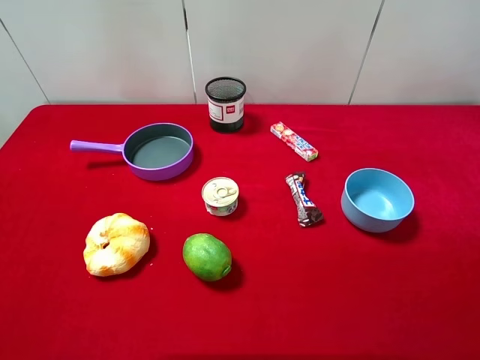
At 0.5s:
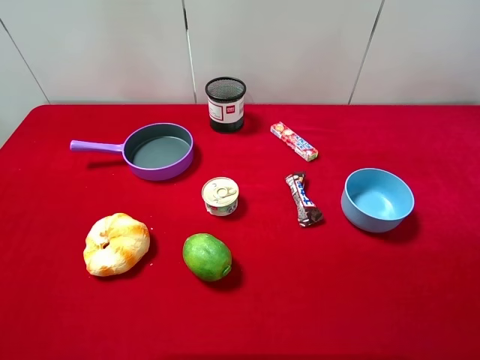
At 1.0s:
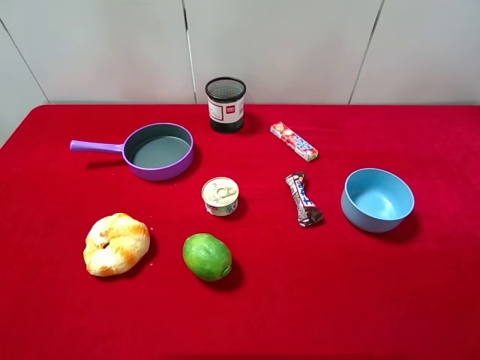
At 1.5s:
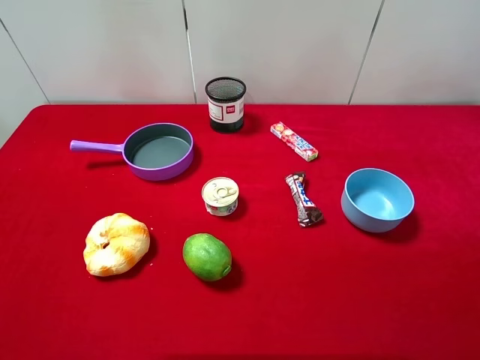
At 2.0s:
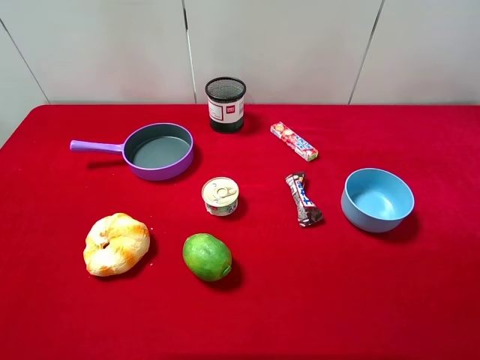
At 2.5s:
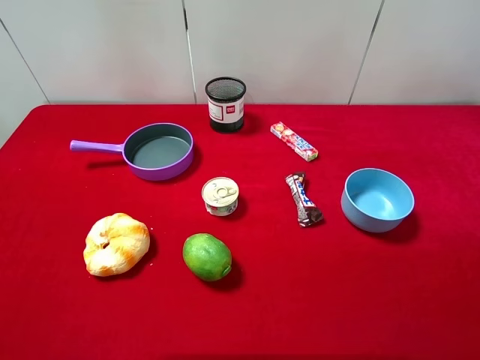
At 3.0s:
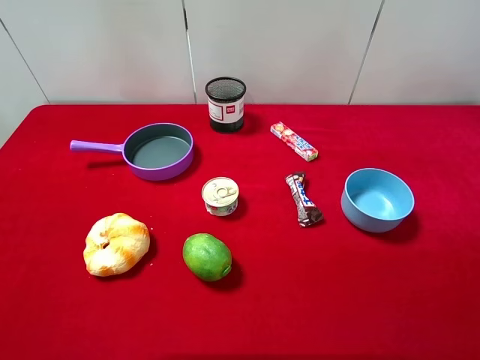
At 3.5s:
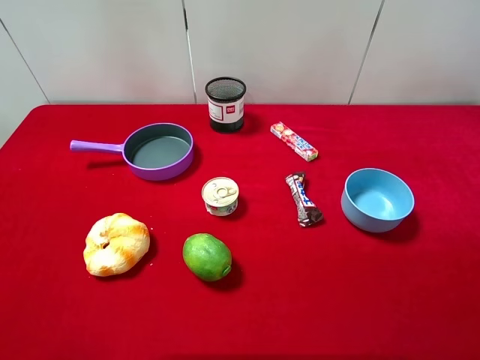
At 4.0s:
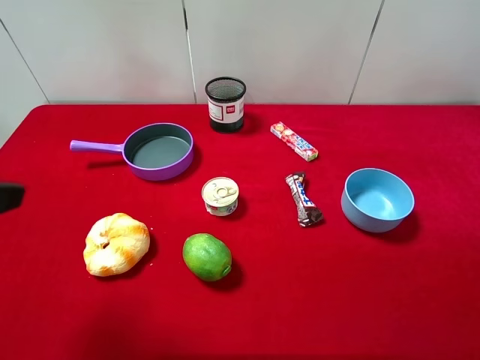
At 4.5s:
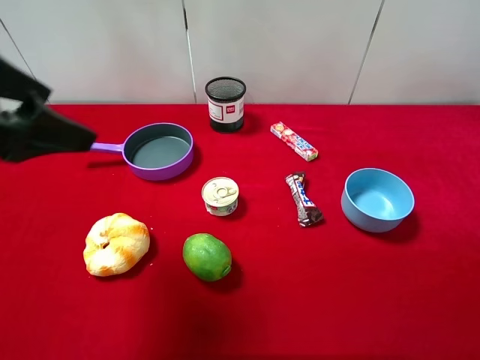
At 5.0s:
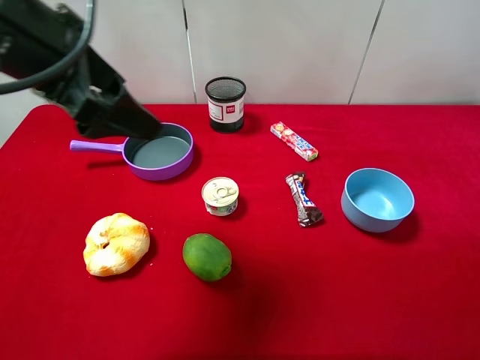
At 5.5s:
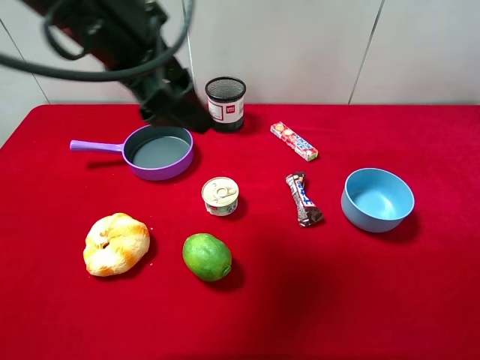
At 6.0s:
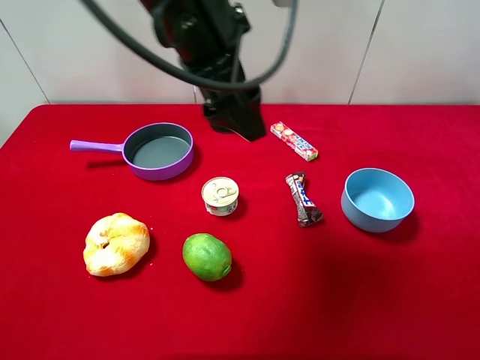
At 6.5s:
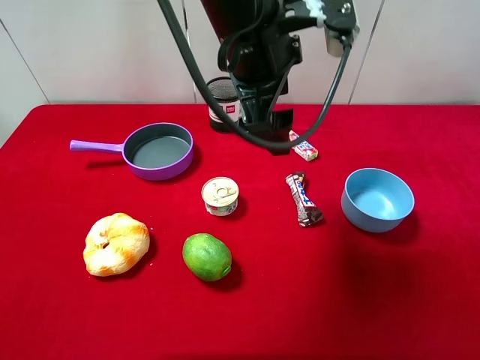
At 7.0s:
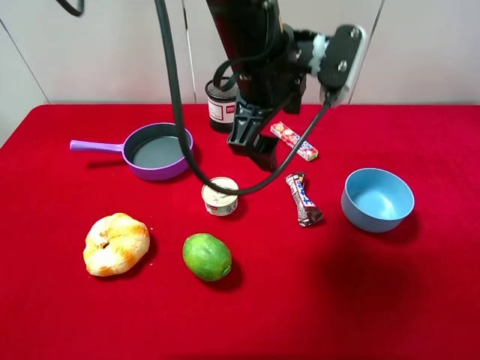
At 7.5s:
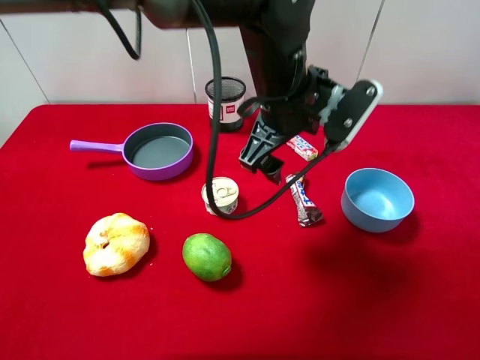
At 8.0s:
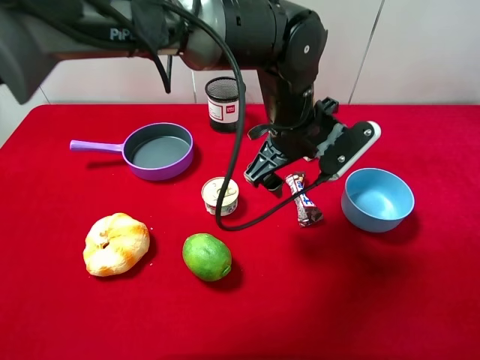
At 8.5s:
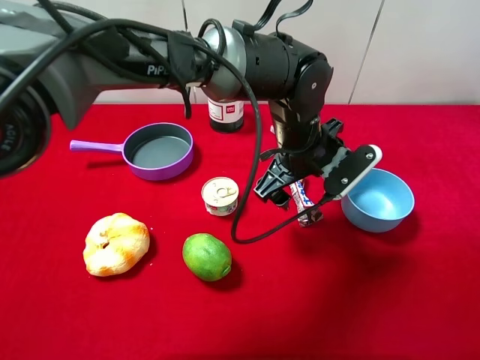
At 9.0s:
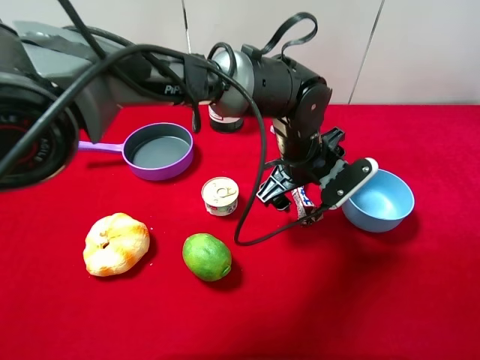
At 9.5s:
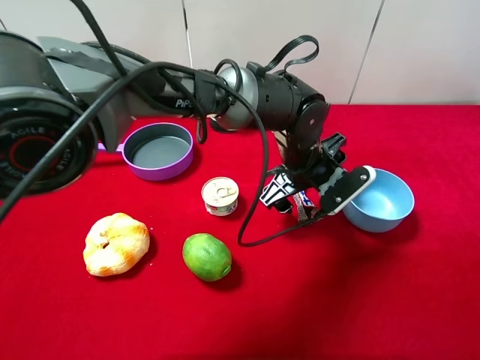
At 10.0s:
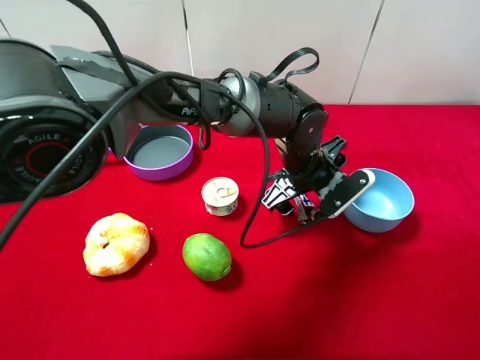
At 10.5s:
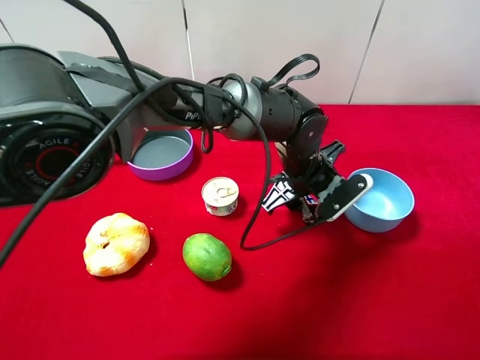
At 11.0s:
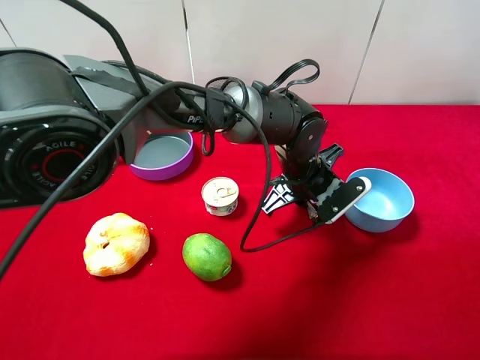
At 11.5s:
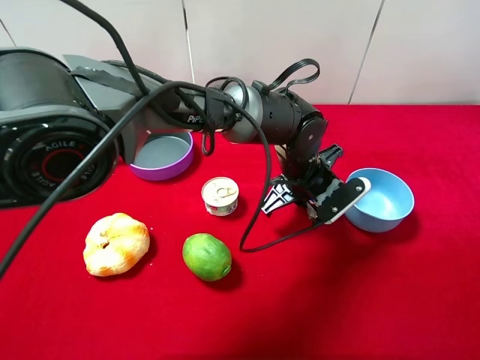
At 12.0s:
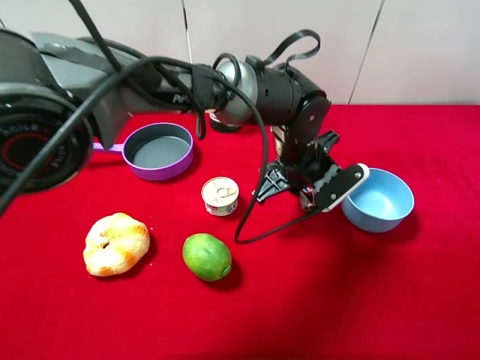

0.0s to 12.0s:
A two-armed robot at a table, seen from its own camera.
Task of the whole recording: pick up an item with a gripper and place it in a random container on the desktop.
0.0s to 2.0s: Both grippers stay about where they are.
4.0s to 6.0s: The left gripper heads to the right and forward, covering some 30 cm.
6.0s to 8.0s: The left gripper moves downward and to the right, approximately 15 cm.
8.0s to 10.0s: The left gripper moves downward, some 10 cm.
10.0s to 12.0s: The left gripper closes up.

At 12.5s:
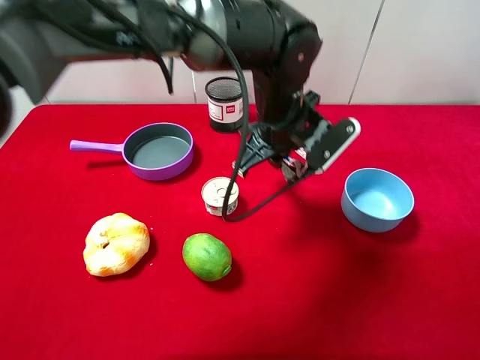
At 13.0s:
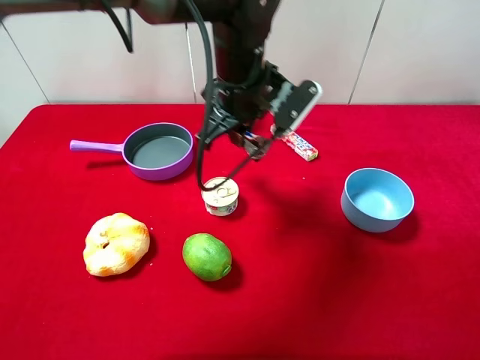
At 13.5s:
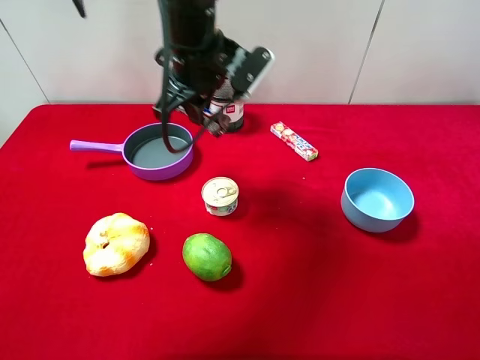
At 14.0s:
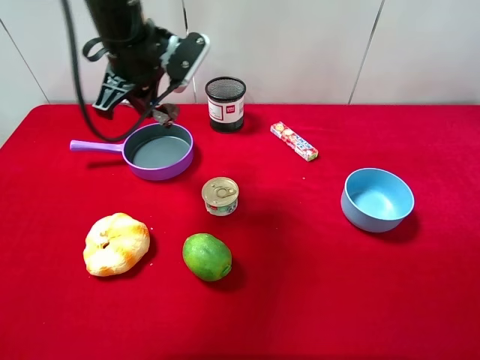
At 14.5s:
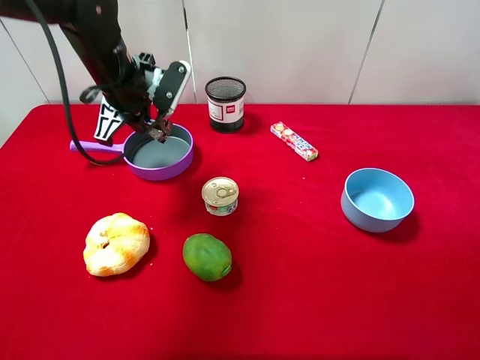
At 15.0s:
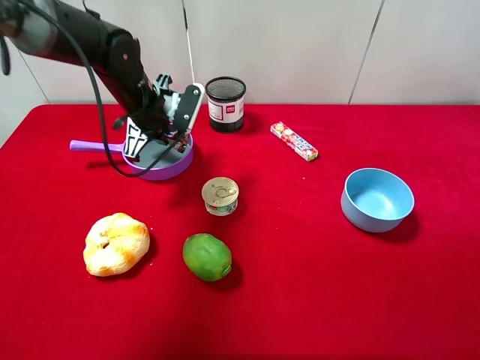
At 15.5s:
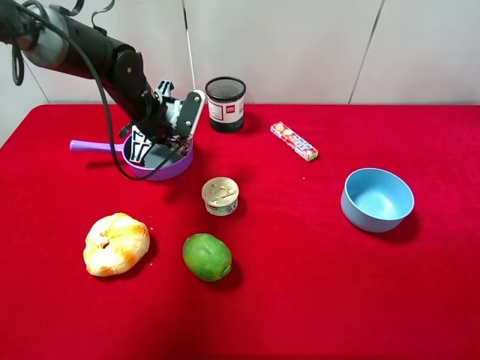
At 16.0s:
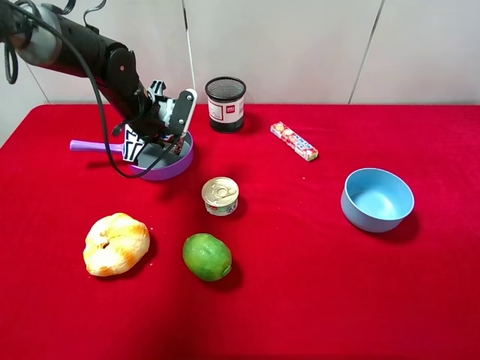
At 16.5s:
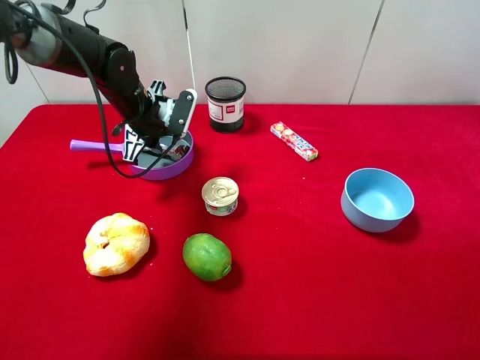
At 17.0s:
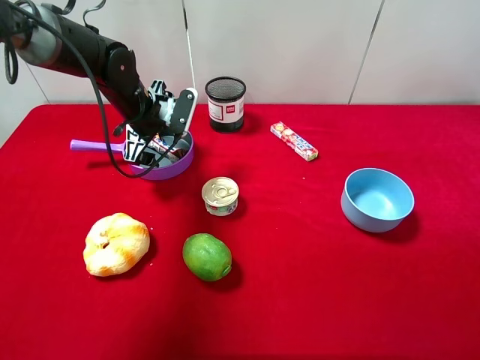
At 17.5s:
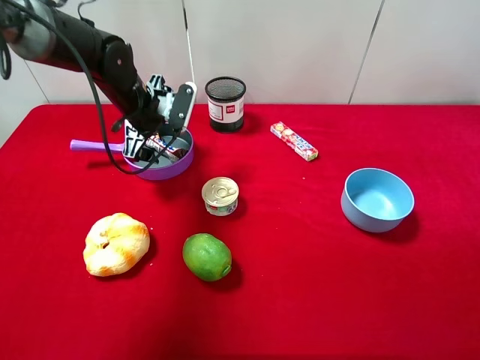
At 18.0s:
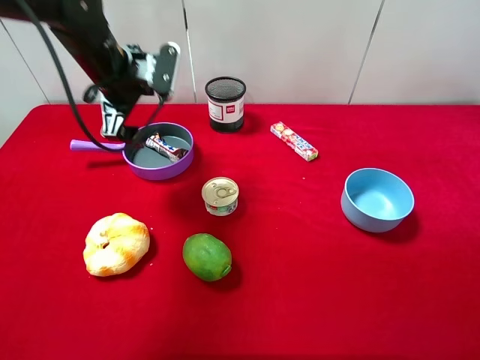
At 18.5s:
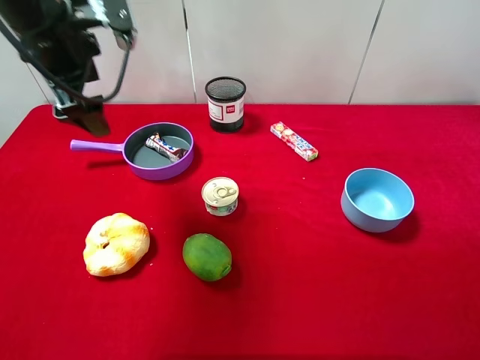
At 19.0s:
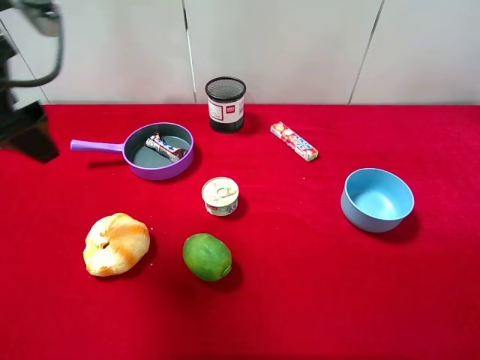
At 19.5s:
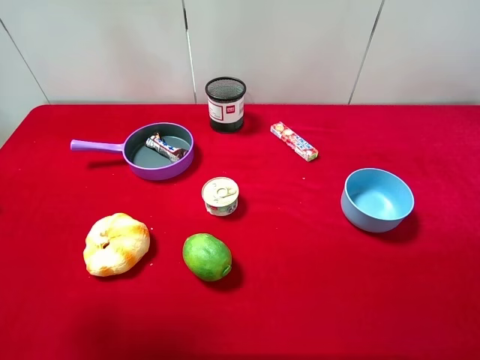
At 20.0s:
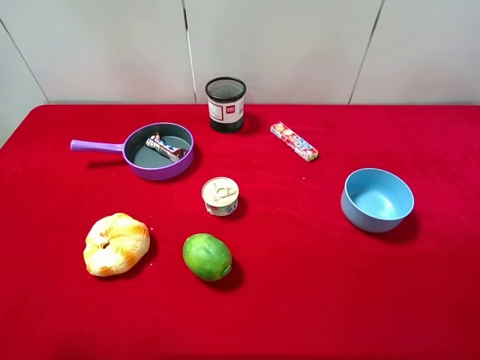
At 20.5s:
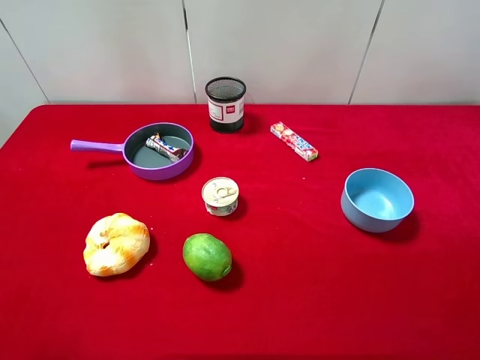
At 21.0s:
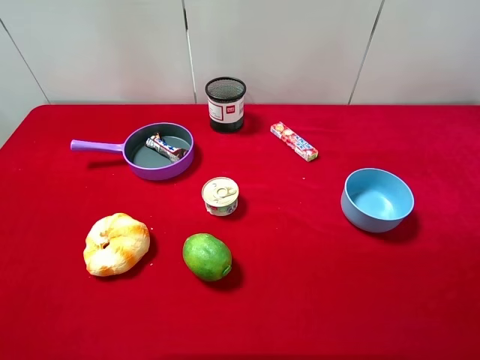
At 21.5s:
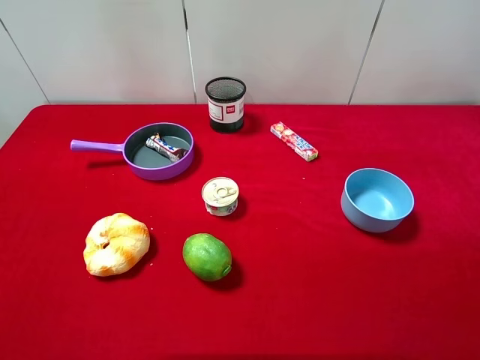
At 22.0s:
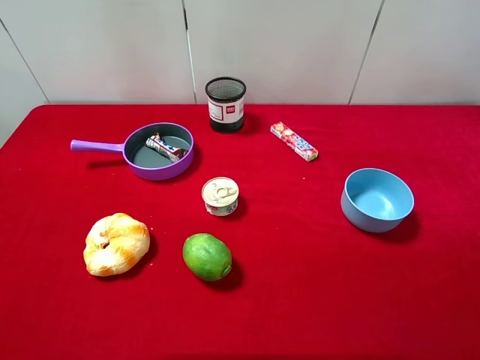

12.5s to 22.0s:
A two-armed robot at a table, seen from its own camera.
Task of the whole recording: pick up an item with a gripper and place it in a random container on the desktop.
12.5s to 14.5s: The left gripper shifts about 20 cm to the left.
14.5s to 16.5s: The left gripper moves downward, about 5 cm, and opens up.
16.5s to 18.0s: The left gripper moves upward, approximately 10 cm, and opens.
18.0s to 20.0s: The left gripper moves backward, approximately 30 cm.

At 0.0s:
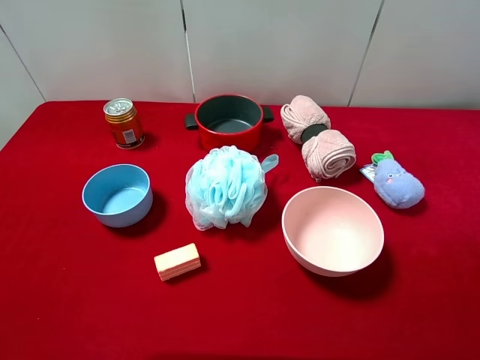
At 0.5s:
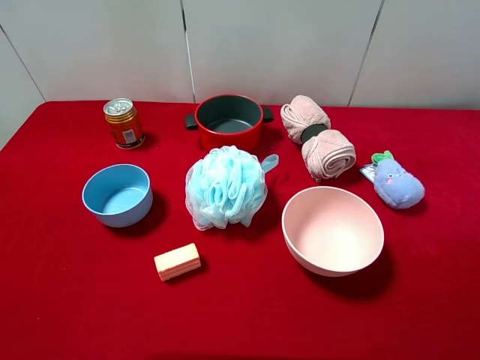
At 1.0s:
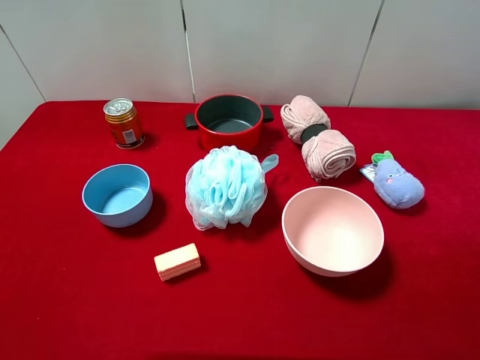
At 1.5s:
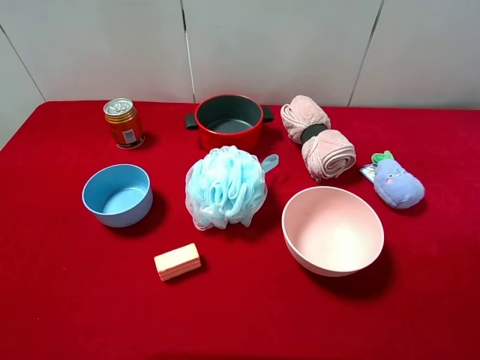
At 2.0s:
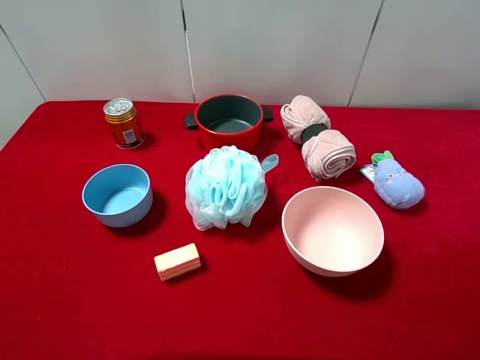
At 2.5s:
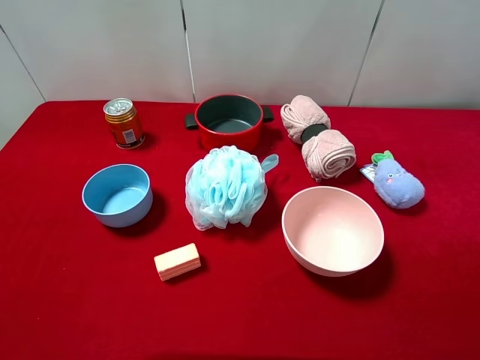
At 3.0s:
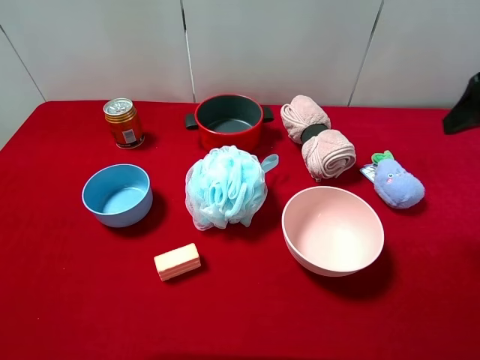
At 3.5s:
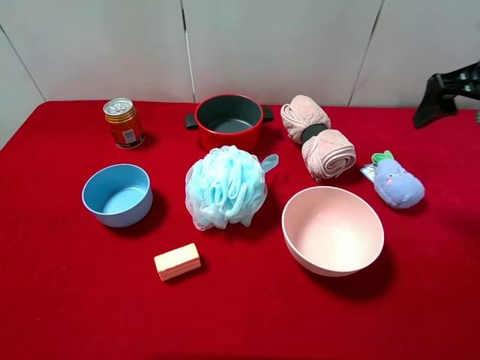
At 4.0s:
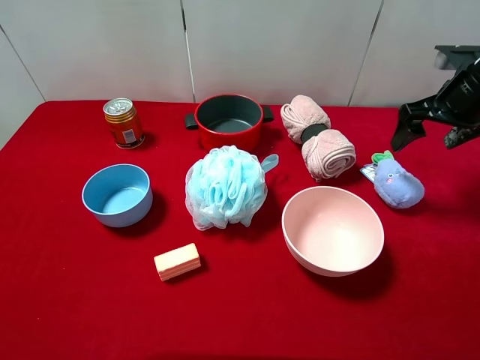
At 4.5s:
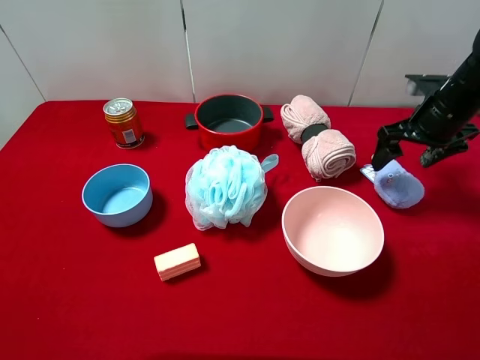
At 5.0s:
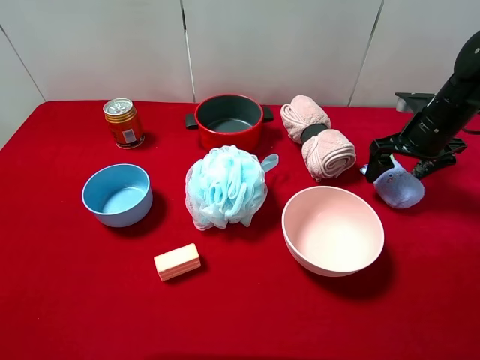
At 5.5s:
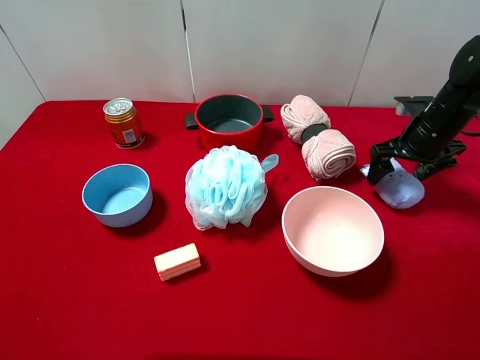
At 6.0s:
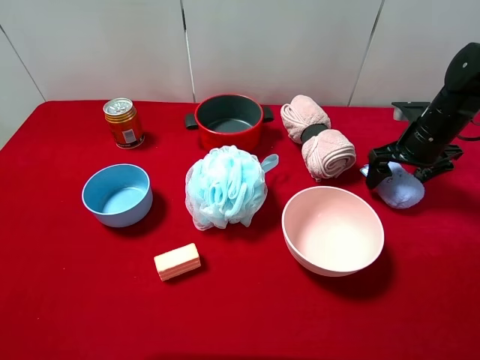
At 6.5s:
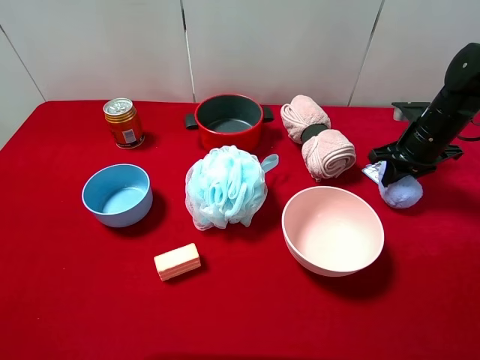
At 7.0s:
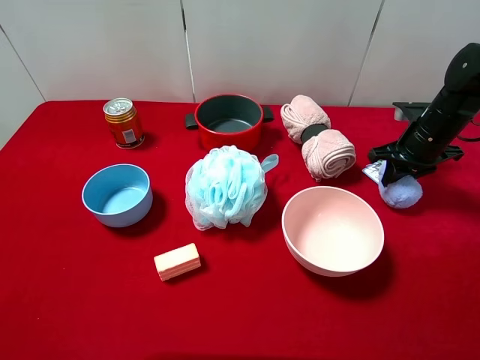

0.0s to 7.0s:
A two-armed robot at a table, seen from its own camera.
Task of the whole recording: pick up an item with a gripper and place it in a random container on the desktop.
2.0s to 3.5s: The right gripper goes about 25 cm forward.
3.5s to 5.0s: The right gripper goes about 15 cm downward and forward.
5.0s to 7.0s: The right gripper closes.
